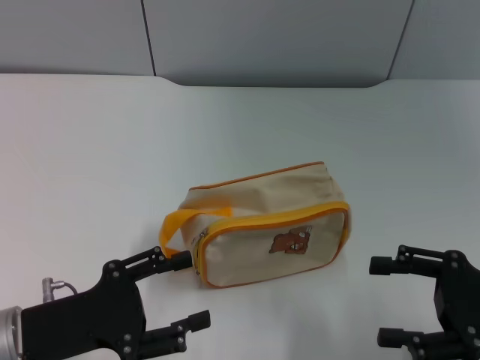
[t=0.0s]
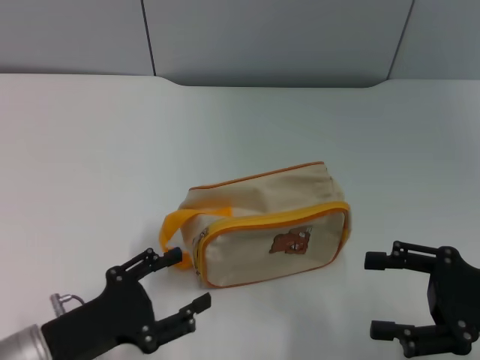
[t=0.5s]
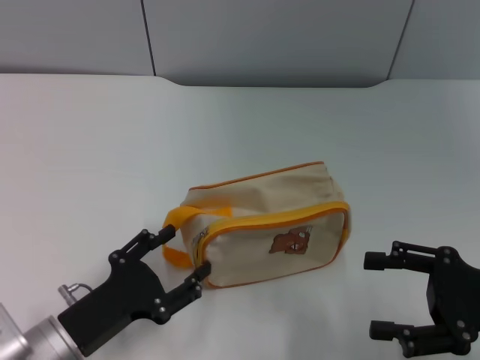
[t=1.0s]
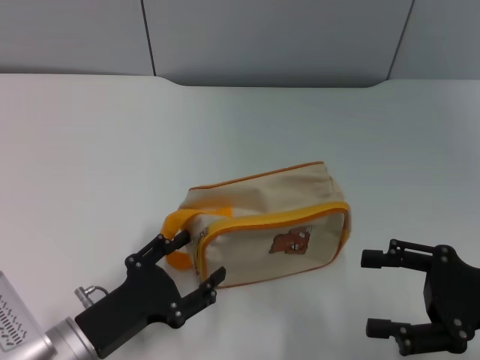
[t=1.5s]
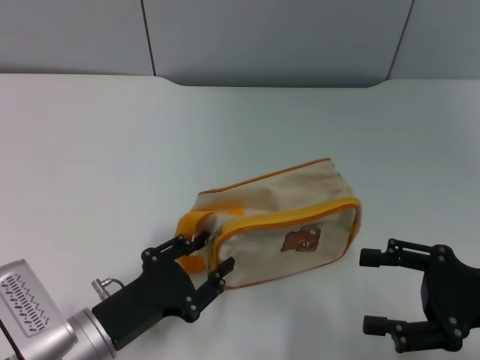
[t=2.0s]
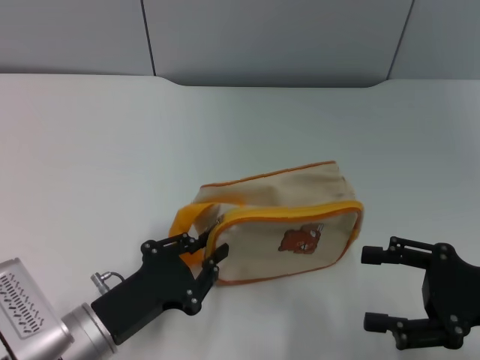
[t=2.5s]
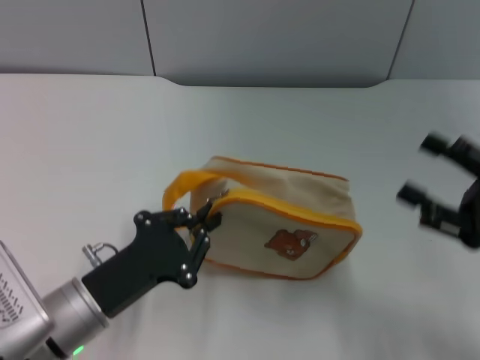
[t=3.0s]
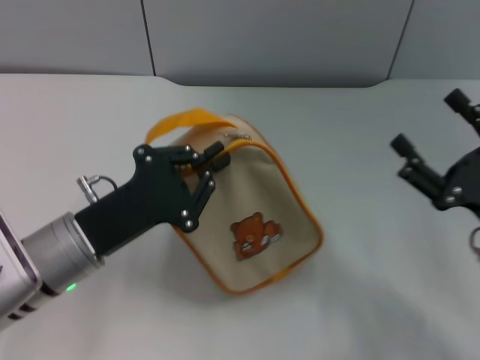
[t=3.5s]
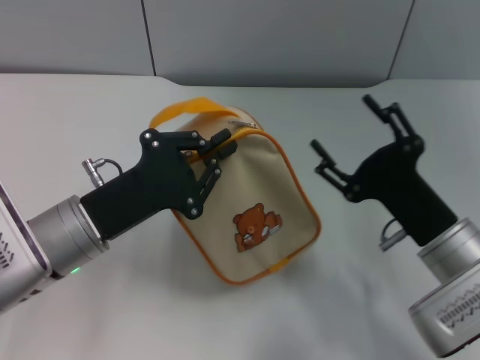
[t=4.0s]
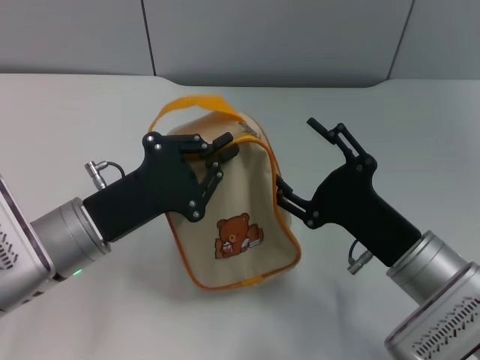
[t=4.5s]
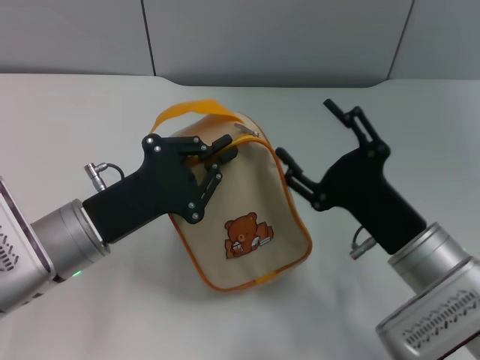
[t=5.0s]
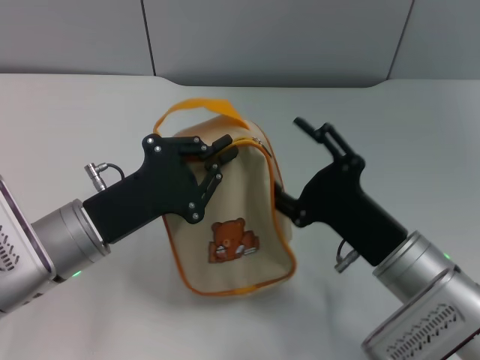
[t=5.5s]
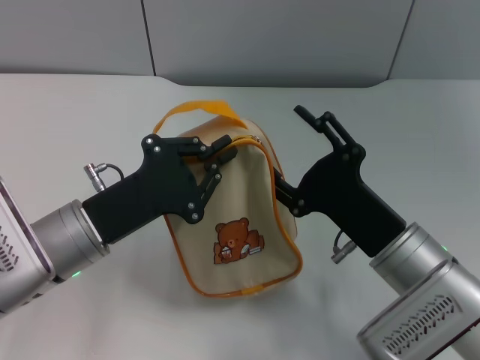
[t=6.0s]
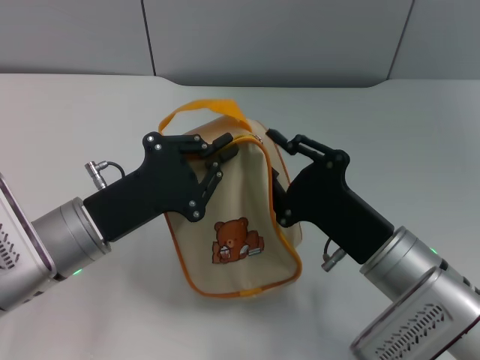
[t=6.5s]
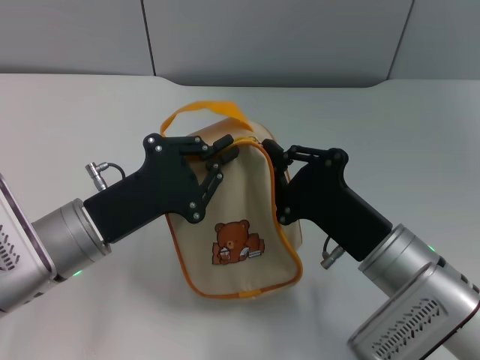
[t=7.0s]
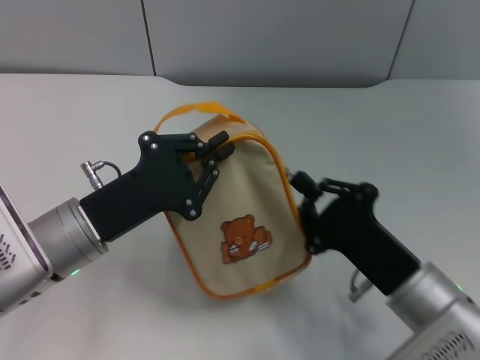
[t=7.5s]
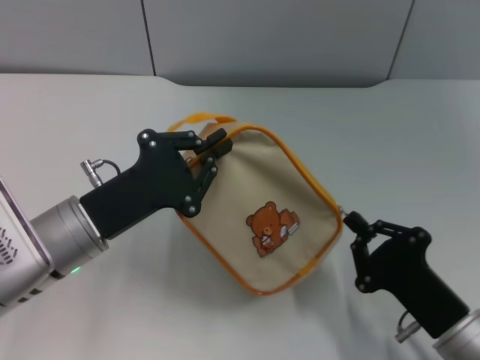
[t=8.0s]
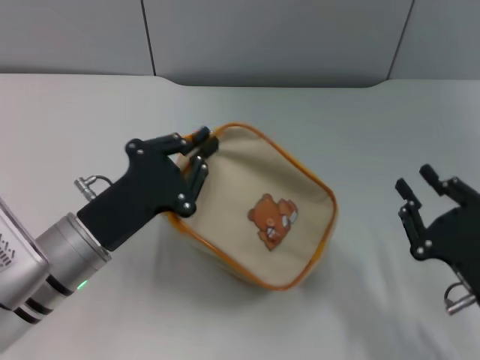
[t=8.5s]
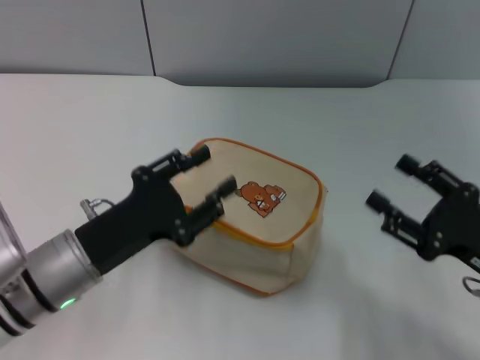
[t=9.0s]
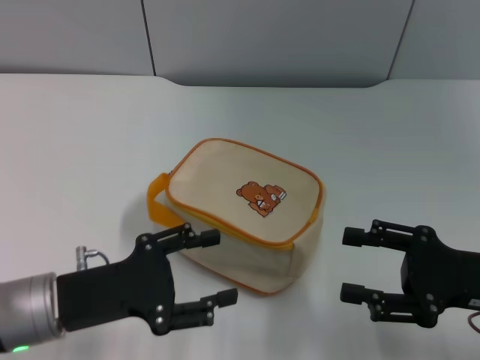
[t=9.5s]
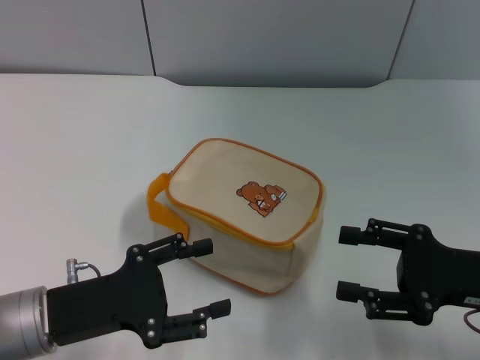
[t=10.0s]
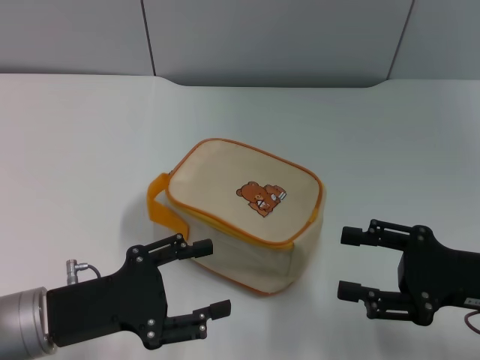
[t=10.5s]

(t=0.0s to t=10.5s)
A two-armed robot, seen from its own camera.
Step, t=0.0s - t=3.0s: Pick up the bag with left gripper.
Step, t=3.5s - t=8.0s: Unzip the zipper of bag with right gripper.
t=0.0s - t=2.0s: The left gripper goes some 10 cm to the right and downward.
t=2.0s - t=4.0s: The left gripper shifts about 10 cm upward and forward, and closes. Meanwhile the right gripper shifts some 10 cm to the left.
t=4.0s - t=6.5s: The right gripper is displaced to the left by approximately 5 cm.
t=6.5s - t=8.5s: The right gripper moves to the right and backward, about 10 cm, and closes up.
t=8.5s - t=10.5s: The right gripper moves upward, roughly 5 cm, and opens up, while the left gripper ends up roughly 5 cm from where it was, and opens.

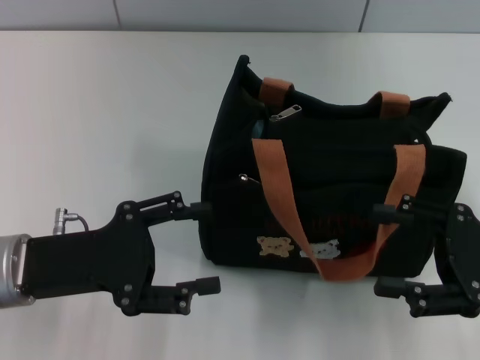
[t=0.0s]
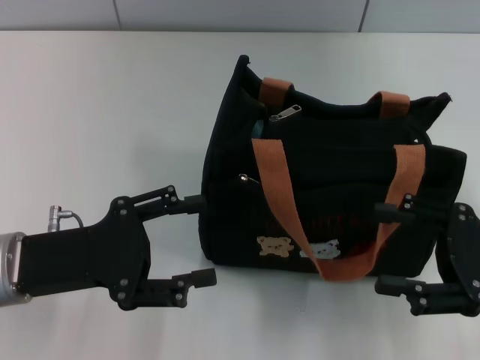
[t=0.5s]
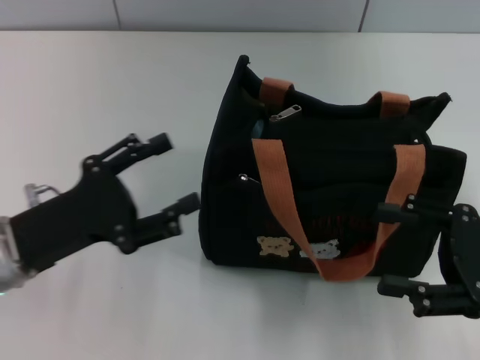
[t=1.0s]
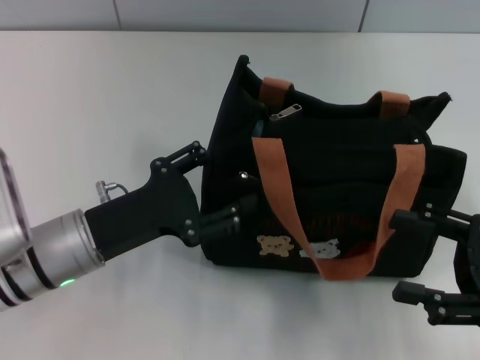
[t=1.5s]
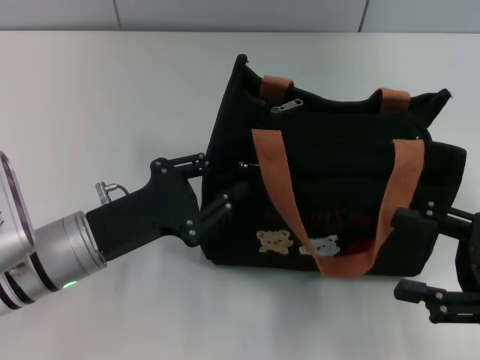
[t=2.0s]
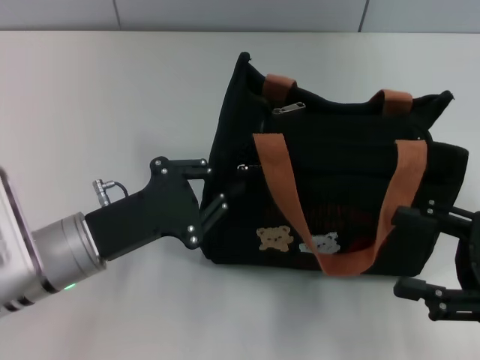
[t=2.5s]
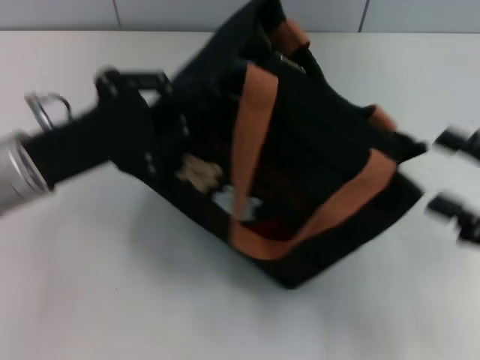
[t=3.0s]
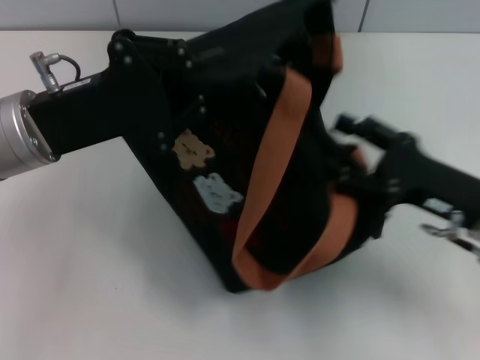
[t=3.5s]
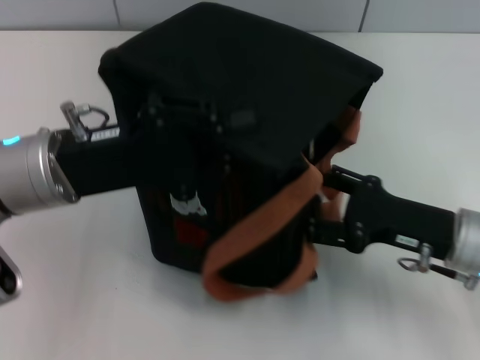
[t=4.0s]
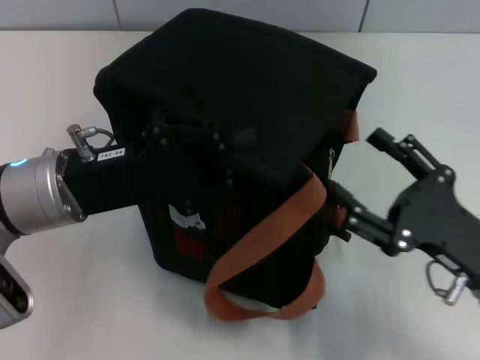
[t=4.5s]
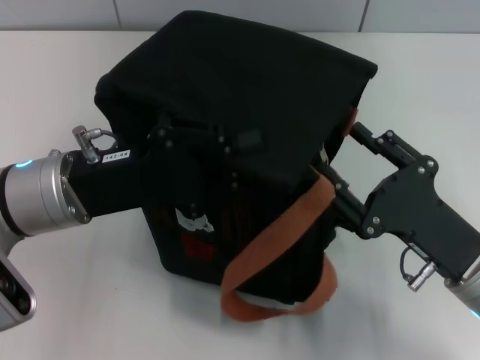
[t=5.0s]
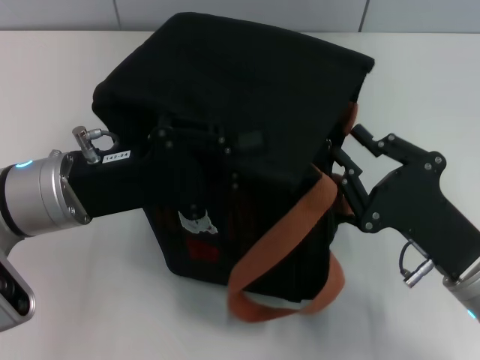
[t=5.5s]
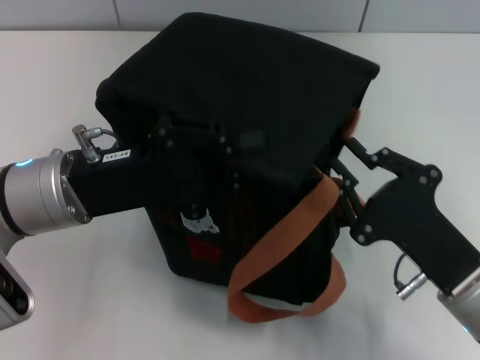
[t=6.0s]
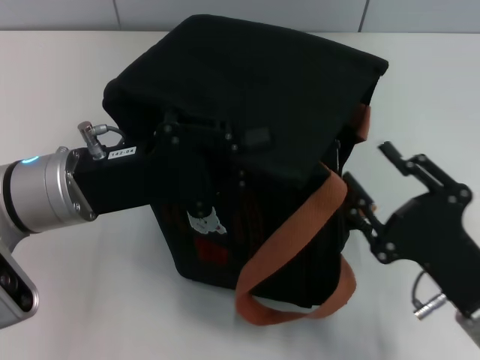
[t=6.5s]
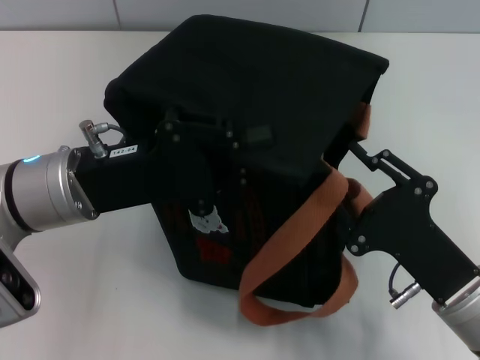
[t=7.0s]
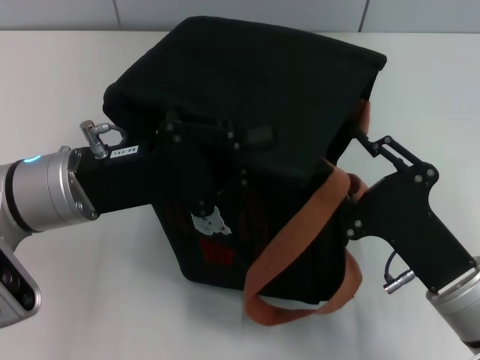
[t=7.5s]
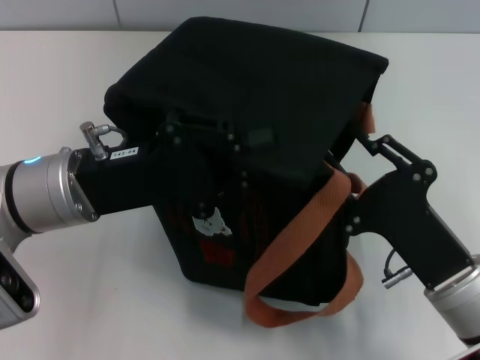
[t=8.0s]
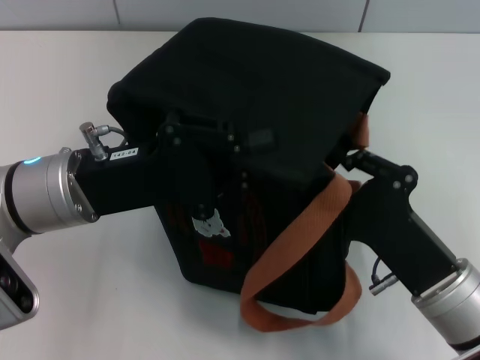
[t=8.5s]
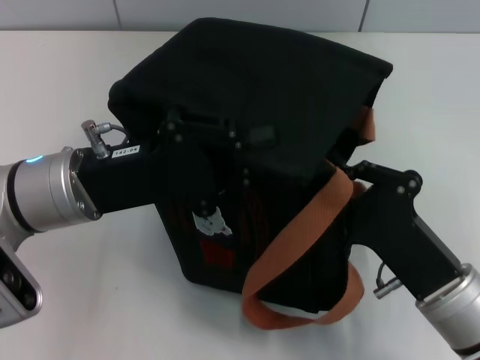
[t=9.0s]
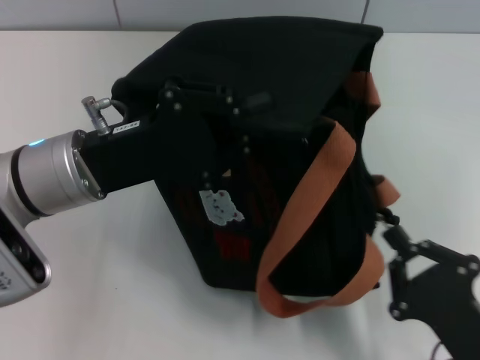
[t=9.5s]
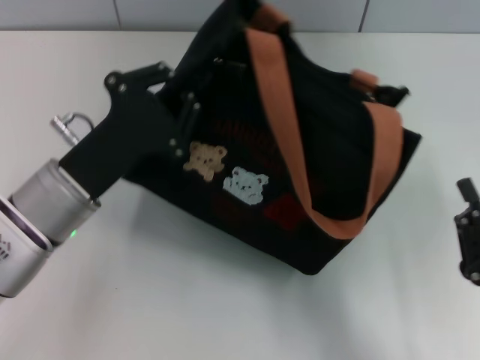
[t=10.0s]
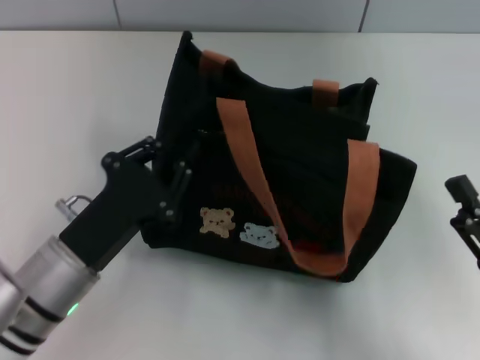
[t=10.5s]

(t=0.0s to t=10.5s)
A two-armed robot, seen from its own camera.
Step, t=0.0s - t=9.5s: Pull open the zipper with your right hand.
t=0.0s - t=2.0s: The left gripper shifts by some 5 cm, and closes its fingers.
t=2.0s - t=4.0s: The right gripper goes some 10 cm to the left and forward. The left gripper goes about 10 cm upward, and closes.
t=4.0s - t=6.5s: The right gripper shifts approximately 10 cm backward, and closes up.
t=6.5s - t=8.5s: The grippers move only a little.
t=8.5s - t=10.5s: The right gripper moves to the right, about 10 cm, and opens up; the left gripper heads downward and backward, covering roughly 10 cm.

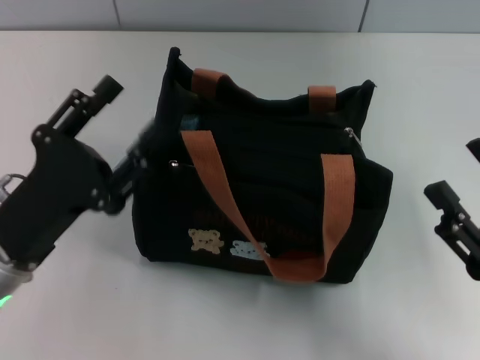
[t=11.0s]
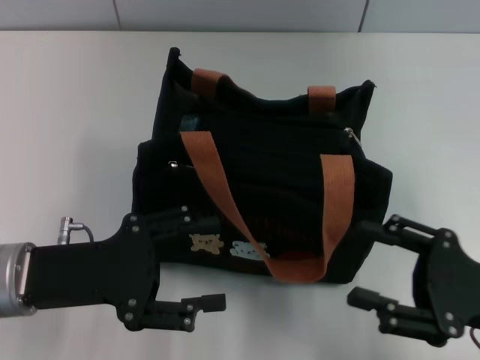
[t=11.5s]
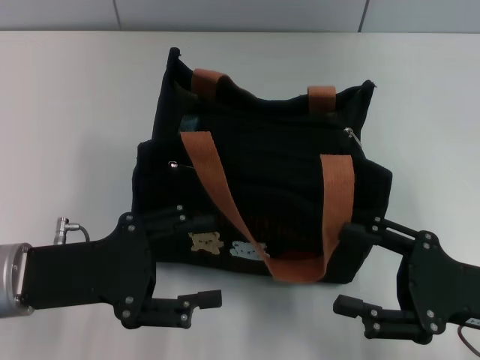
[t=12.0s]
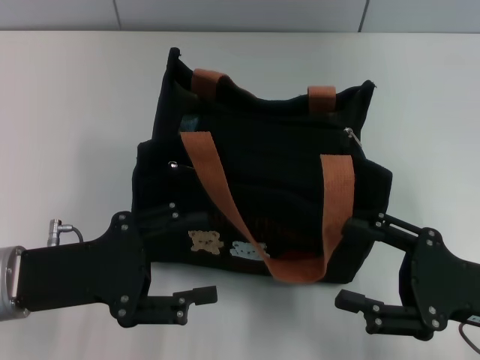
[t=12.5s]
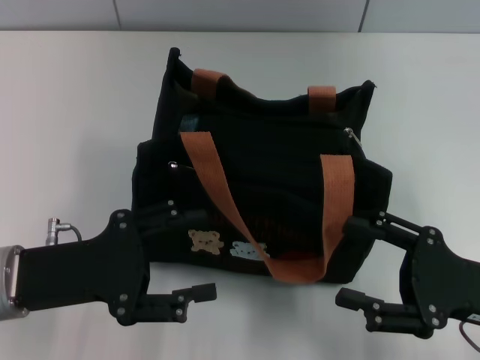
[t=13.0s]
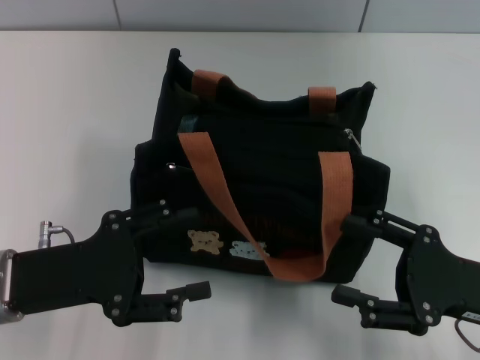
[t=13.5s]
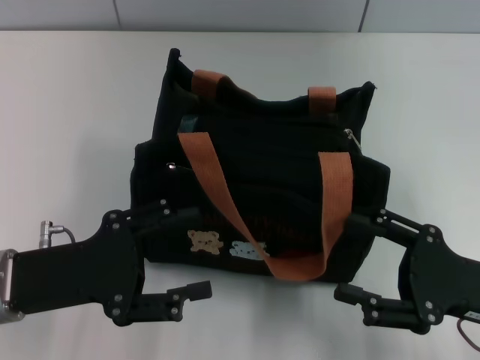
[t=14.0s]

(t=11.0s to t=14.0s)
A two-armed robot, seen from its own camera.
t=11.0s - t=12.5s: The left gripper opens its fingers.
t=12.5s - t=14.0s: Neither gripper changes place.

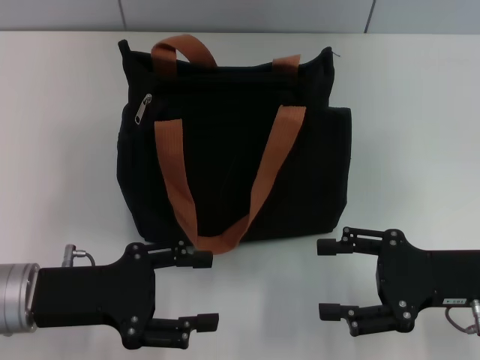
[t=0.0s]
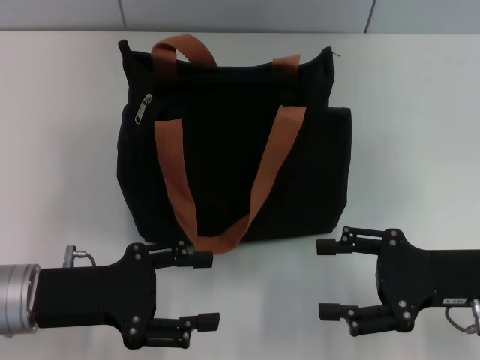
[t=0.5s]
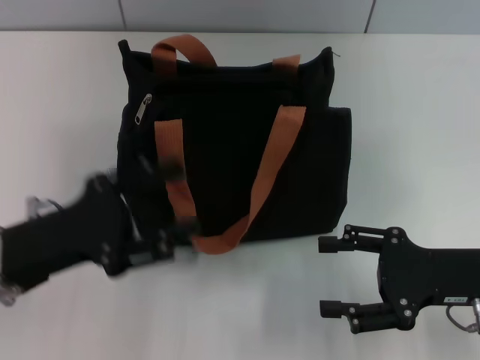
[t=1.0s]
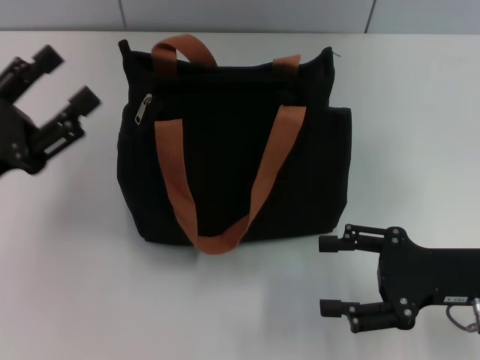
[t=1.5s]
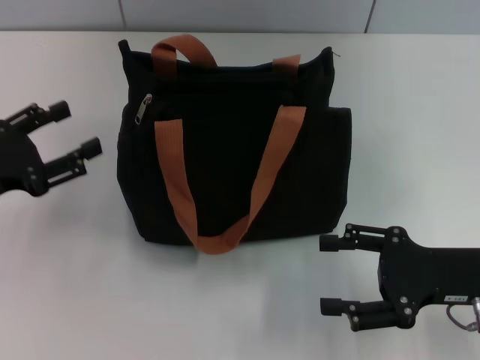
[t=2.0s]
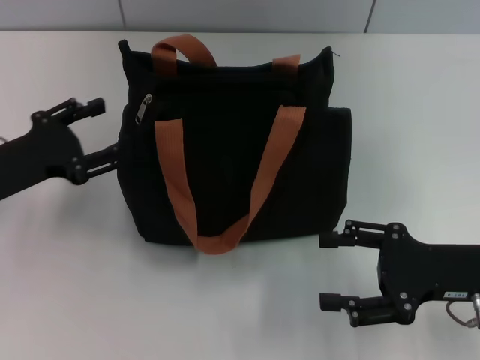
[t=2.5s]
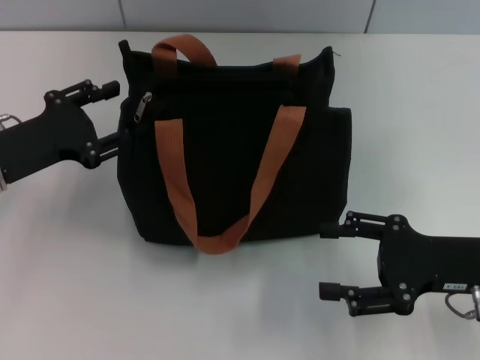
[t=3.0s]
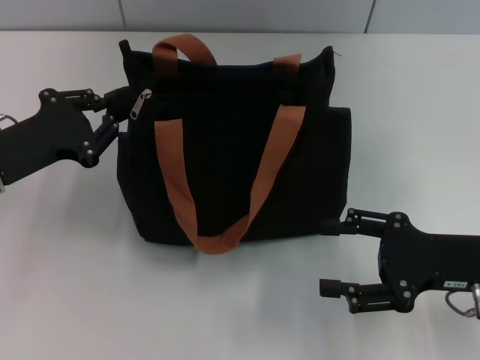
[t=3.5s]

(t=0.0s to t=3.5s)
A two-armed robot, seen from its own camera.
t=0.0s - t=2.0s: The left gripper moves to the left, roughly 10 cm.
t=2.0s - t=3.5s: The left gripper changes place by some 5 cm, and closes up.
